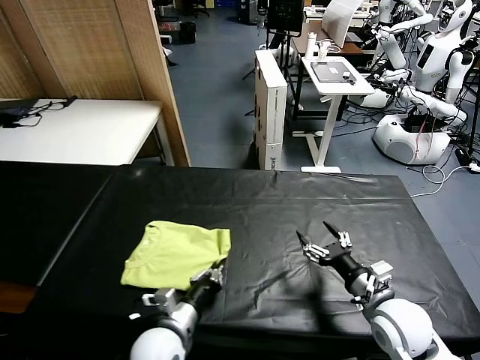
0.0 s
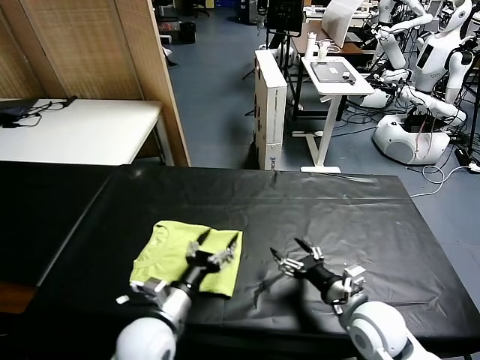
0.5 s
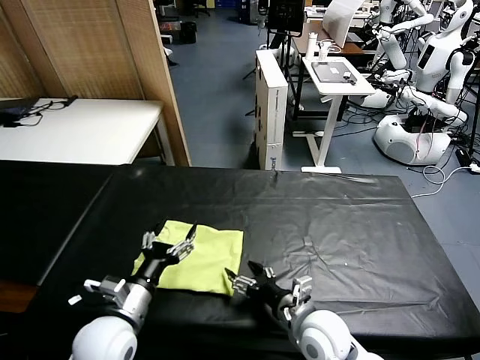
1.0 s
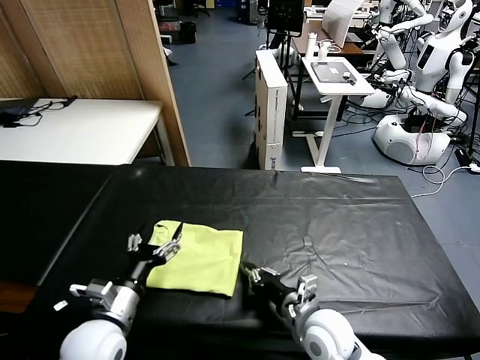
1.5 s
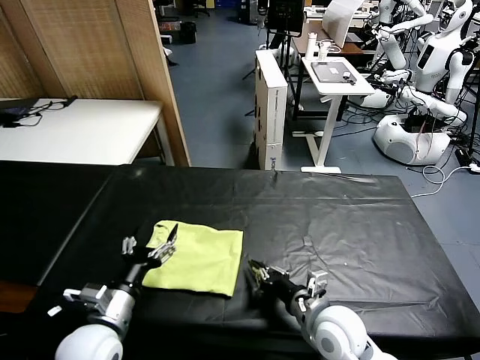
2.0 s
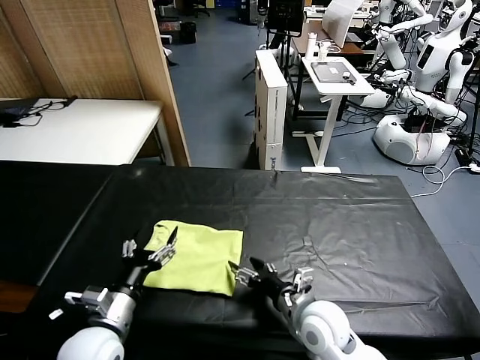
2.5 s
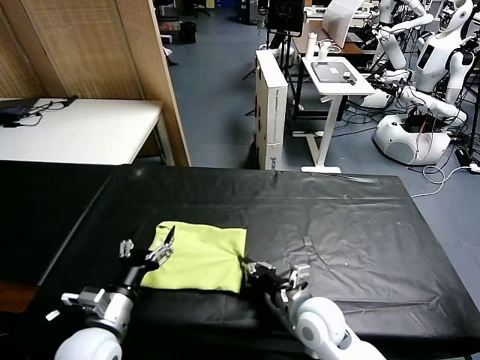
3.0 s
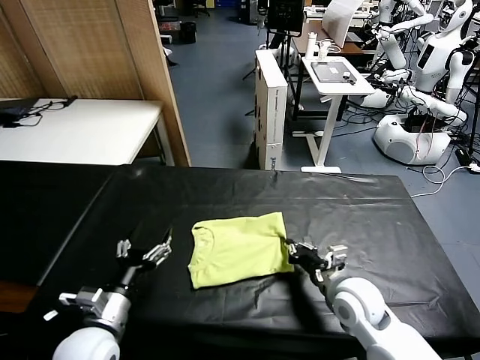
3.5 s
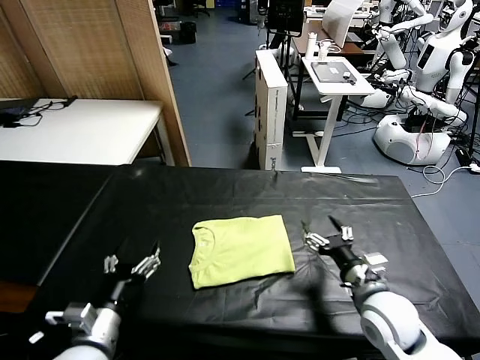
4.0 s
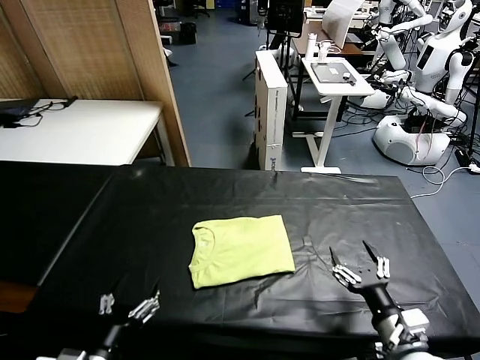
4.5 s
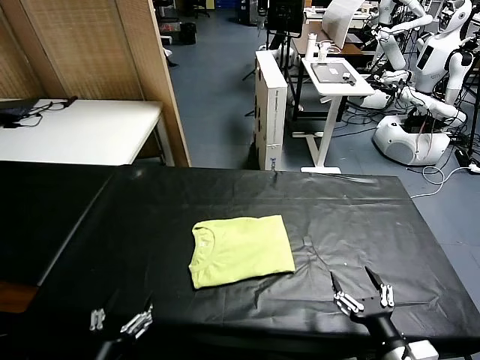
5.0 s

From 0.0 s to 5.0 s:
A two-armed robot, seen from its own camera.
Task of the whole recording: fold and organize the clothes.
Step, from 0.5 s to 3.5 s: Drag the clothes to the center of the table.
From 0.0 s to 2.5 s: The two grippers go some 10 cm to the left. The right gripper closes its fingers.
From 2.5 s to 5.0 s: The right gripper heads backward and to the right, covering approximately 20 cm, and opens up. The left gripper travels backward by roughly 15 cm.

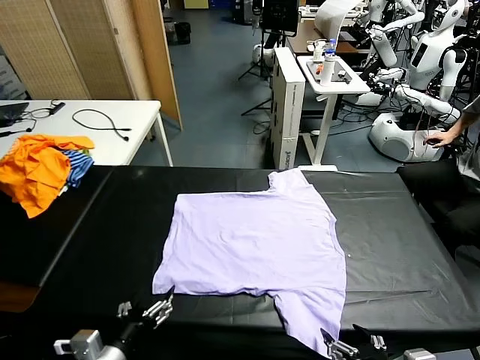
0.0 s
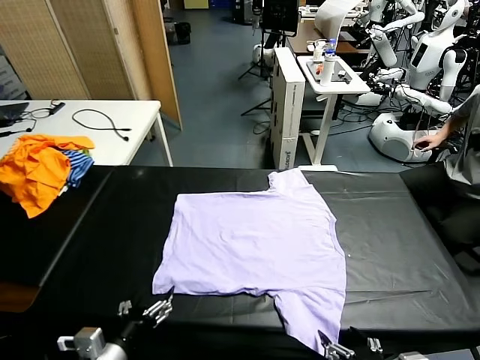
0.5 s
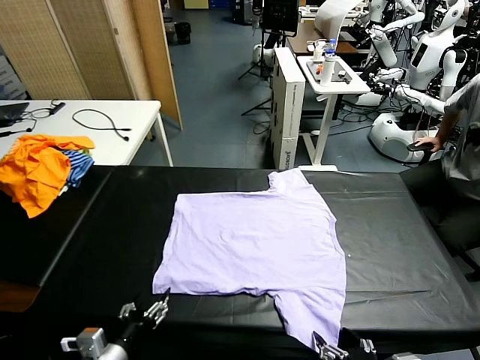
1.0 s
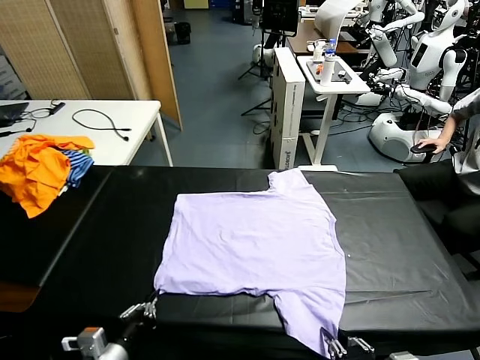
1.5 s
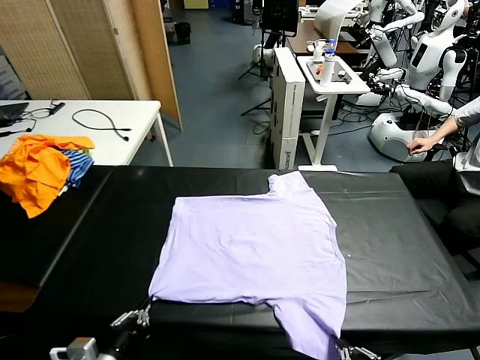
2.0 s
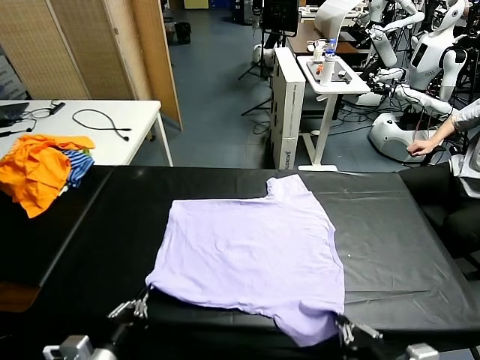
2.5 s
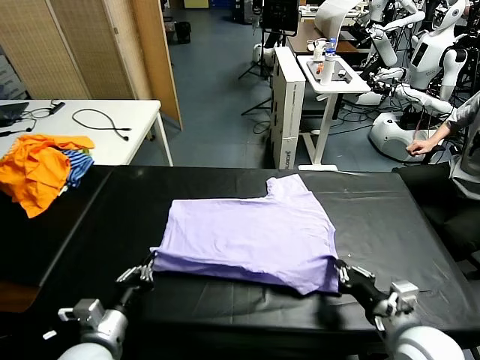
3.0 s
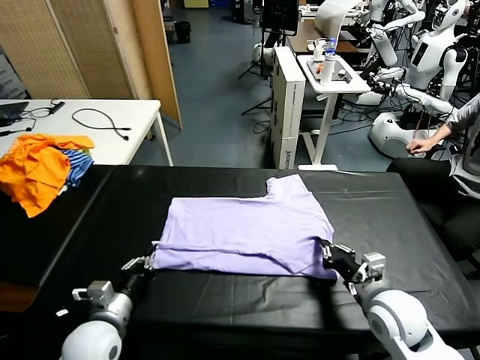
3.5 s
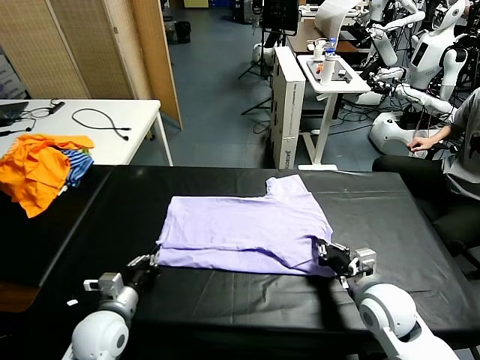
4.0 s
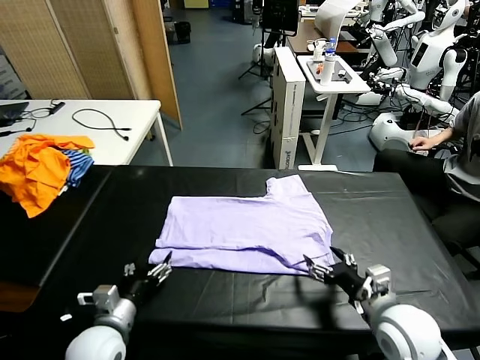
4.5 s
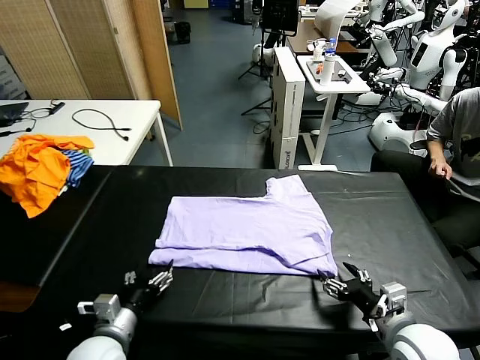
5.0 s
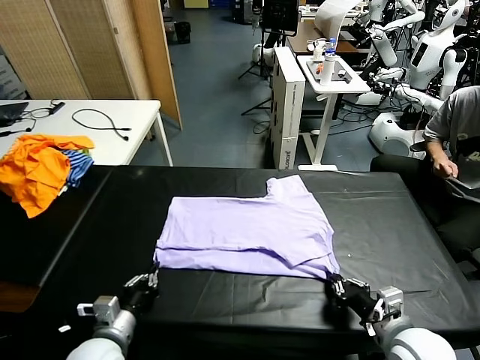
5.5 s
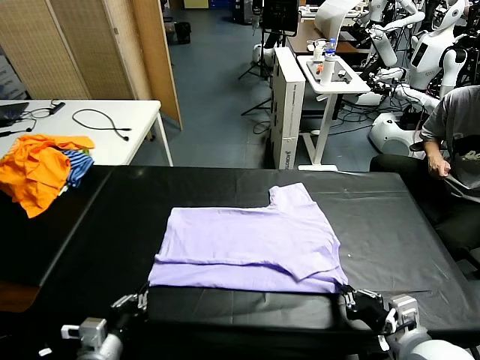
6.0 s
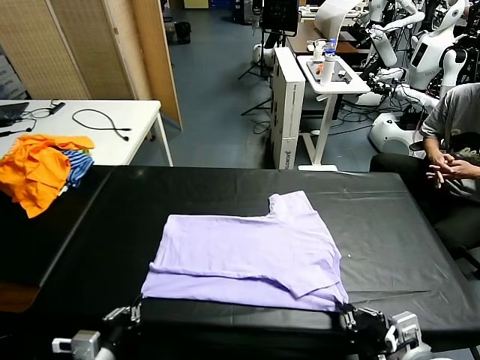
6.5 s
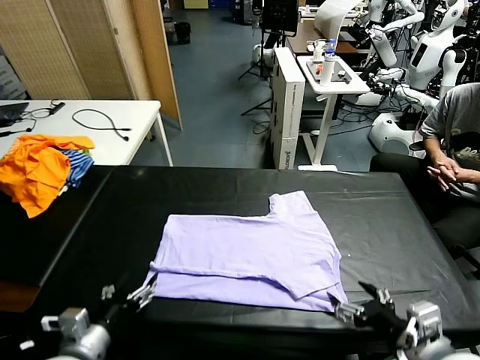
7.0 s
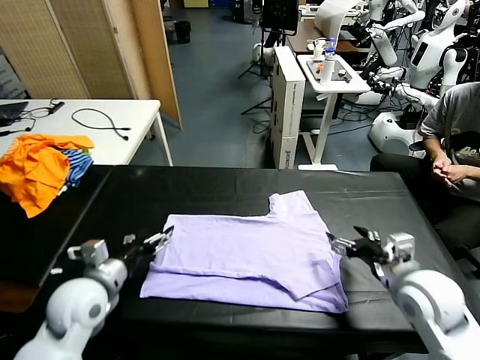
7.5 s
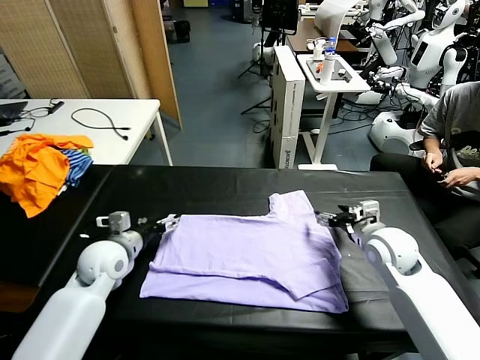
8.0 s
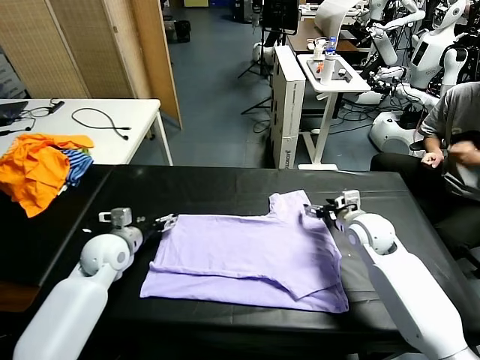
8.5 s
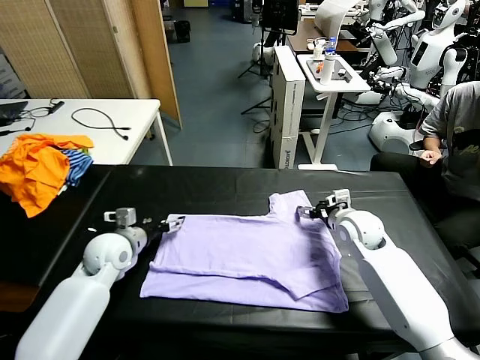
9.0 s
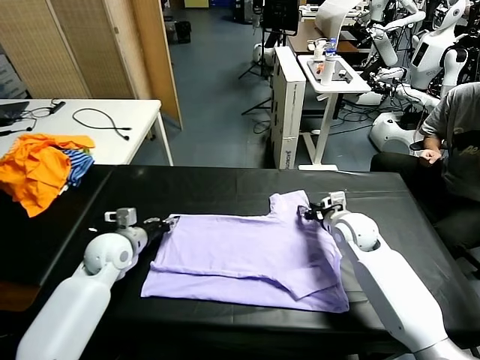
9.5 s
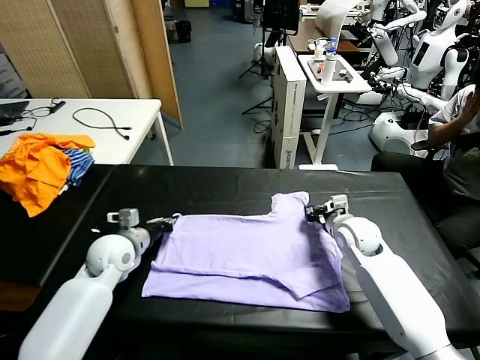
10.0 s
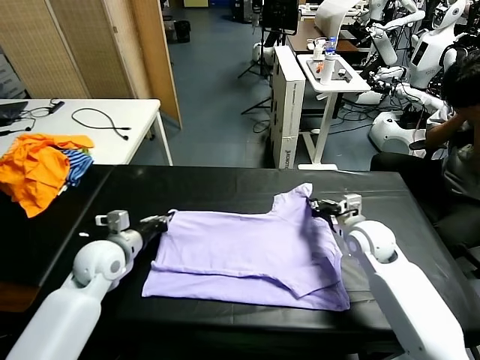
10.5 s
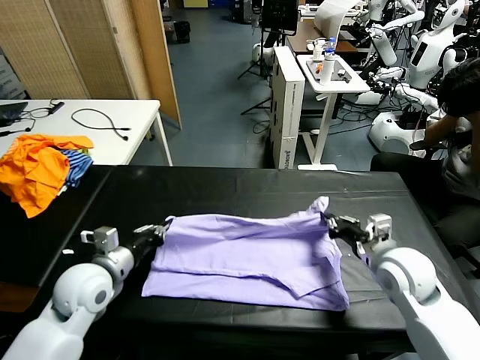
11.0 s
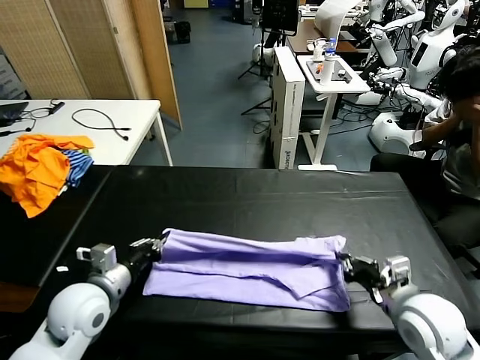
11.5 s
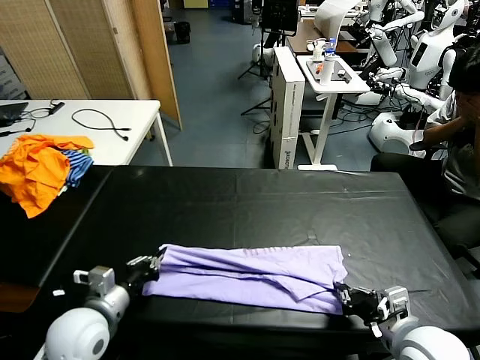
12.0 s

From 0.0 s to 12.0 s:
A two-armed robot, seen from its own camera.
Task of the whole recording: fold and organize the clothes.
Step, from 0.0 s to 1.5 s: use both grippers simultaneously to clamp the lower edge of the clothing fabric.
Step, from 2.0 s to 4.0 s: use both grippers to drag the lower edge of the fabric forward and fold it over the upper edge.
Step, from 4.5 s to 6.5 s: Drag the clothes downward with both gripper.
Step, from 7.0 s to 9.5 s: use both grippers simultaneously to clamp the upper edge of the clothing fabric.
From 2.0 s to 4.0 s: Both grippers travel together forward, roughly 15 cm. The right gripper opens.
From 4.0 s to 6.0 s: Both grippers move backward, some 10 cm. The right gripper closes up. Meanwhile the left gripper opens, then closes once more.
From 6.0 s to 8.0 s: The two grippers go roughly 25 cm forward. The right gripper opens up. Meanwhile the left gripper opens its fingers.
From 8.0 s to 10.0 s: The right gripper moves approximately 5 cm, and closes up, while the left gripper closes its fingers.
From 10.0 s to 12.0 s: The right gripper goes about 25 cm backward. Meanwhile the left gripper moves backward, some 15 cm.

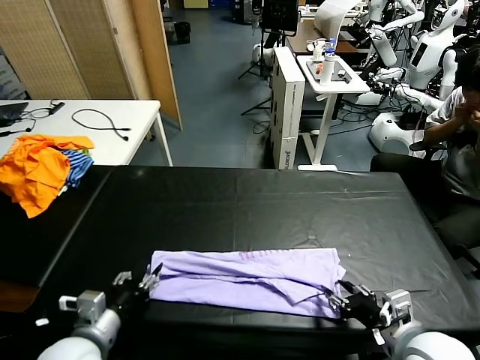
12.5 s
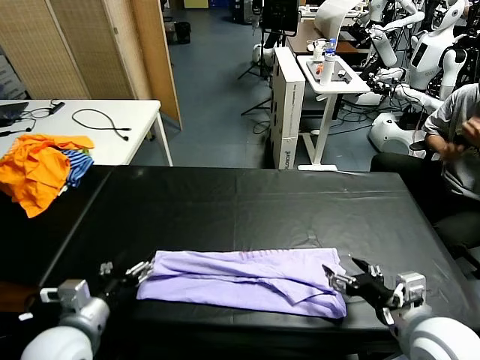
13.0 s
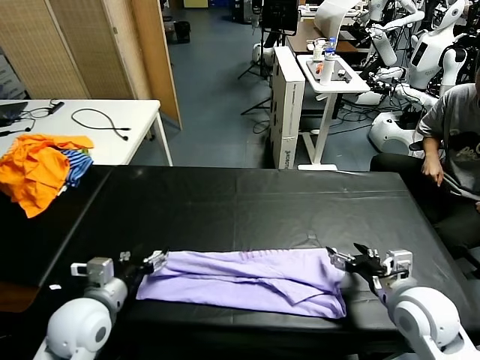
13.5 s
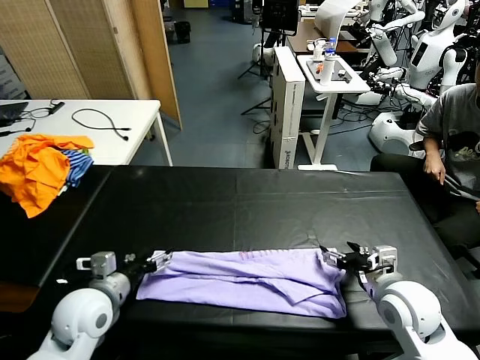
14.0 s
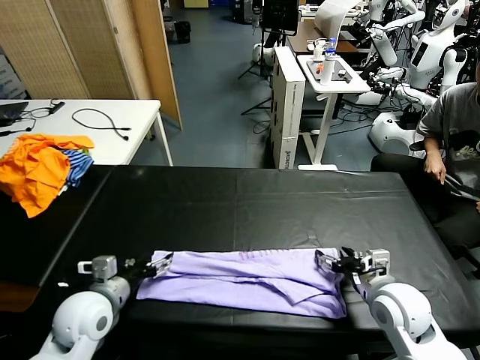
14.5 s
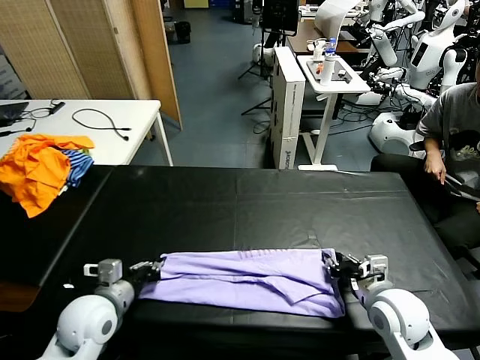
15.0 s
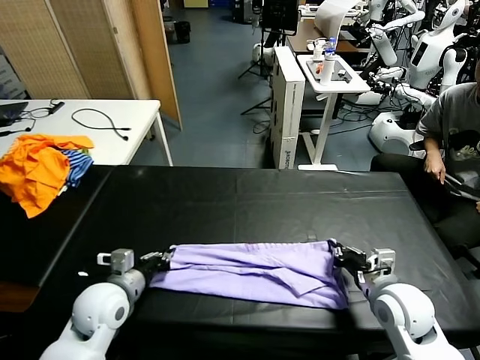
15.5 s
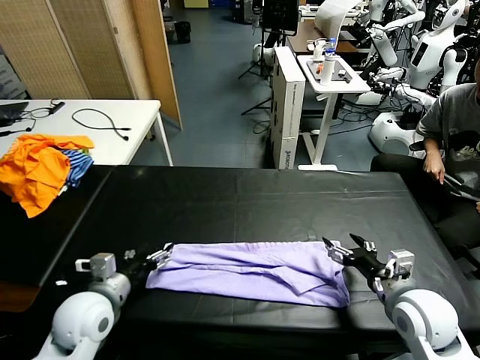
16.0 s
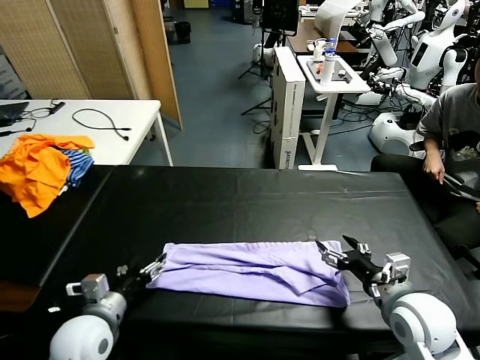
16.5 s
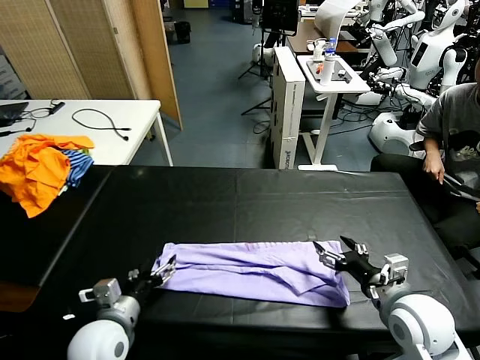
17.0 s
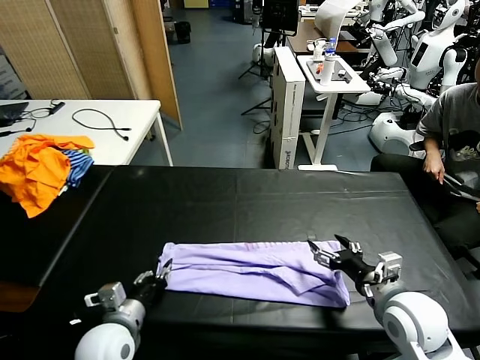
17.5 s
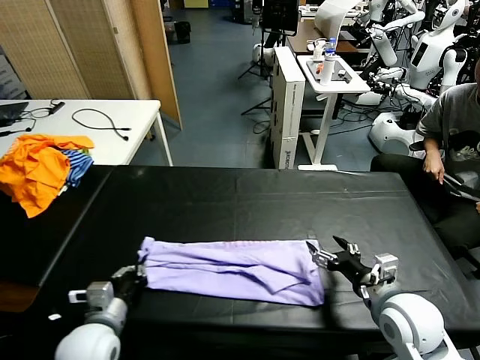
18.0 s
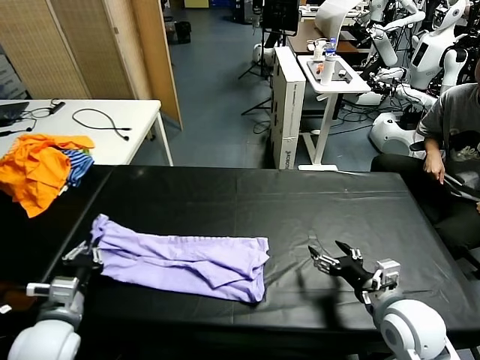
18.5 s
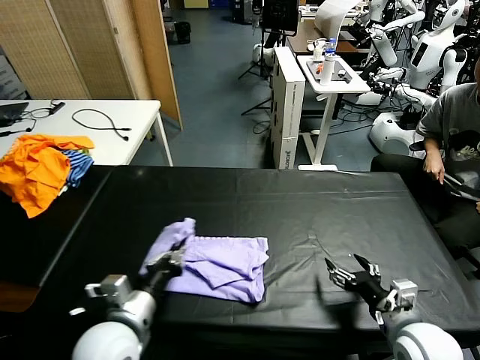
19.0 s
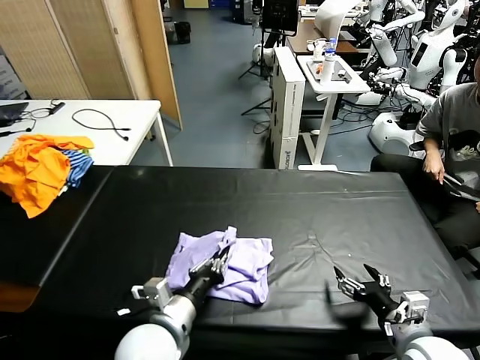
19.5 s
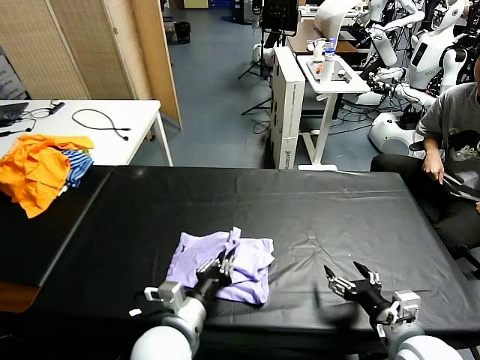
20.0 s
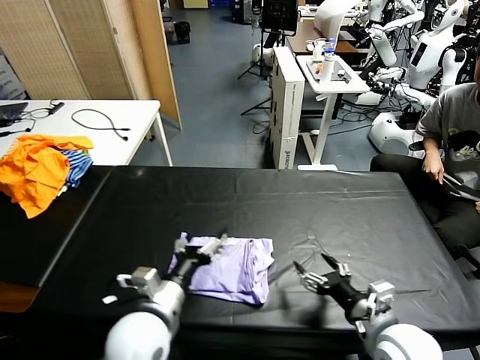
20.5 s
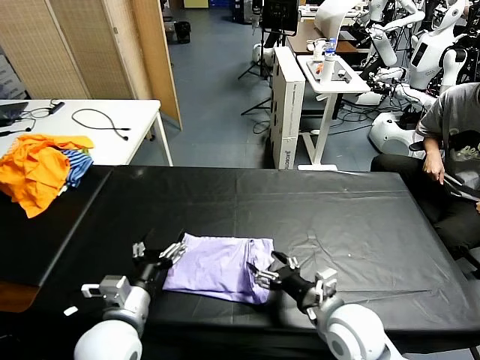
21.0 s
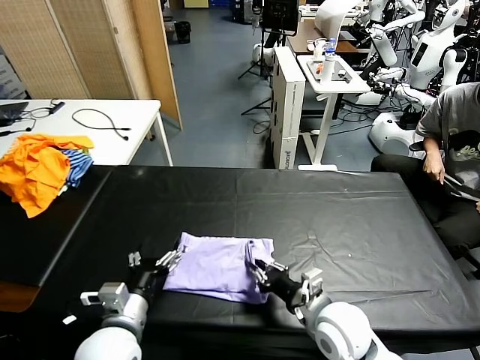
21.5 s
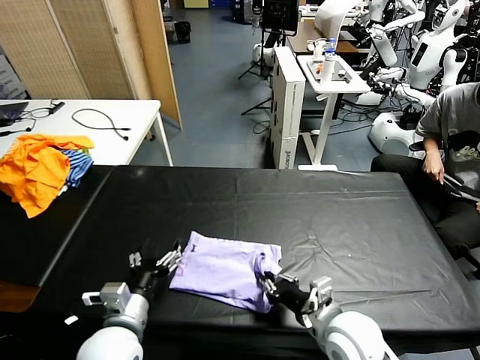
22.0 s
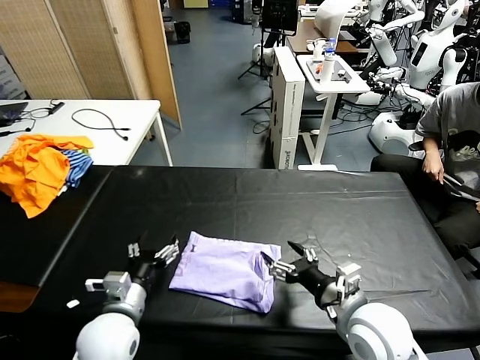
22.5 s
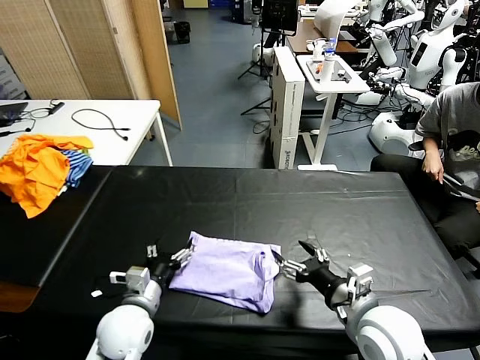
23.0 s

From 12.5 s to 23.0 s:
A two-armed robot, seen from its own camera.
Task of the whole recording: fold and organize the clothes.
Step, from 12.5 s to 15.5 s: use both grippers to drag the upper edge of the fabric backward and fold it over the lower edge.
Step, from 16.0 s to 17.5 s: use the left gripper to clamp the left edge of the fabric.
From 12.5 s to 14.5 s: The left gripper heads forward, covering approximately 10 cm; the right gripper goes approximately 10 cm forward and downward.
From 14.5 s to 16.5 s: The left gripper closes and opens again, while the right gripper closes, then reopens.
From 16.5 s to 19.0 s: The right gripper changes place by approximately 5 cm. The left gripper heads to the right, covering approximately 5 cm, and closes its fingers.
From 19.0 s to 21.0 s: The right gripper goes approximately 10 cm to the left, while the left gripper goes to the right and returns, roughly 10 cm each way, and opens.
From 21.0 s to 23.0 s: The right gripper changes place by approximately 5 cm, and closes and opens again, while the left gripper is displaced downward by roughly 5 cm.
